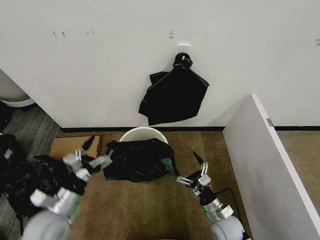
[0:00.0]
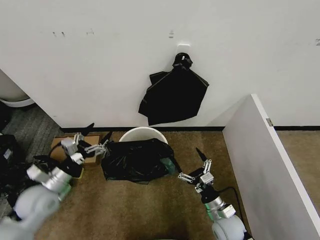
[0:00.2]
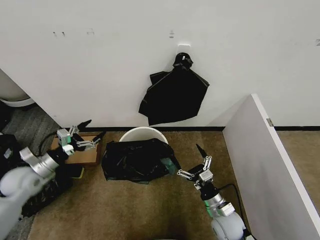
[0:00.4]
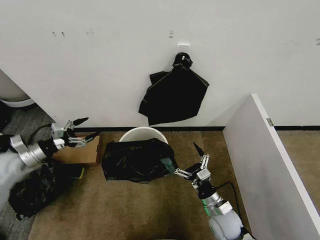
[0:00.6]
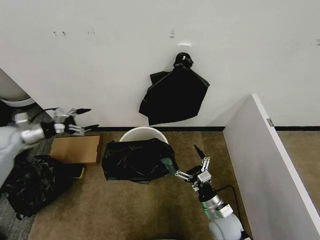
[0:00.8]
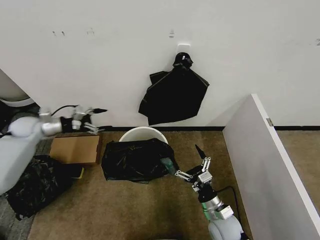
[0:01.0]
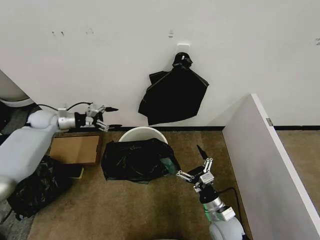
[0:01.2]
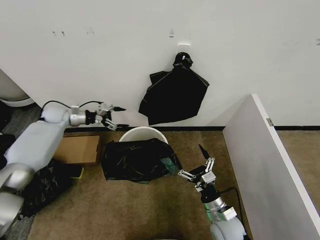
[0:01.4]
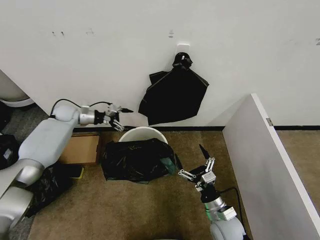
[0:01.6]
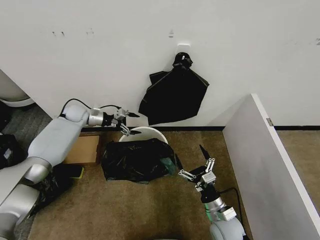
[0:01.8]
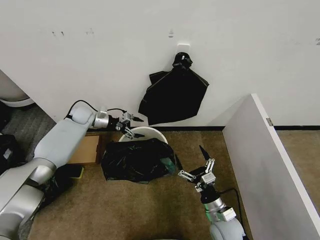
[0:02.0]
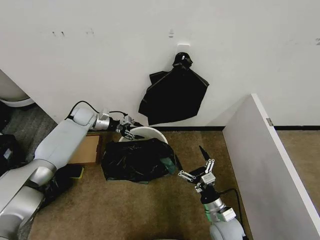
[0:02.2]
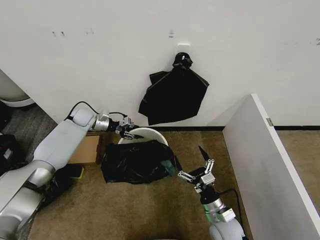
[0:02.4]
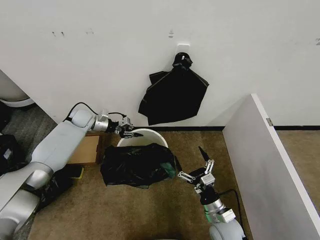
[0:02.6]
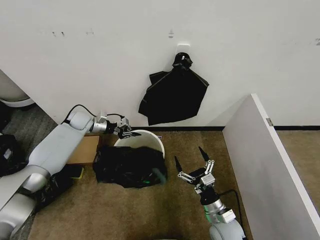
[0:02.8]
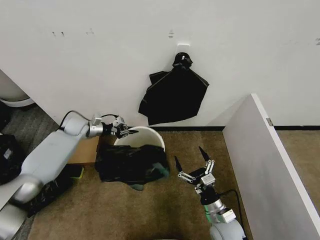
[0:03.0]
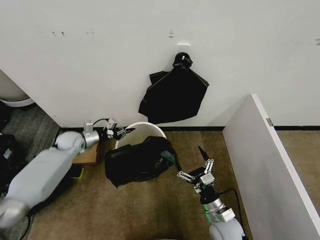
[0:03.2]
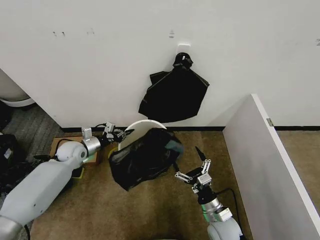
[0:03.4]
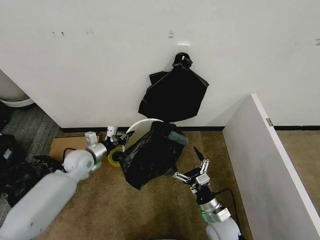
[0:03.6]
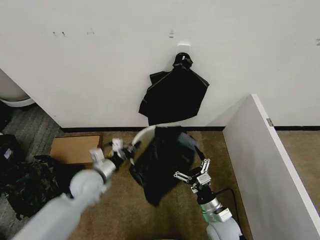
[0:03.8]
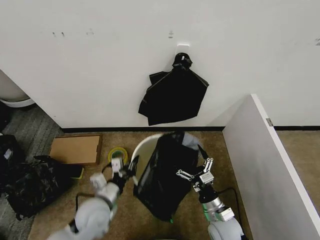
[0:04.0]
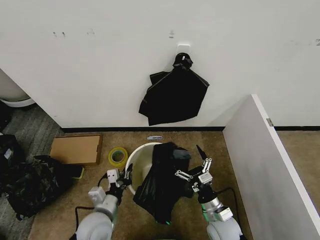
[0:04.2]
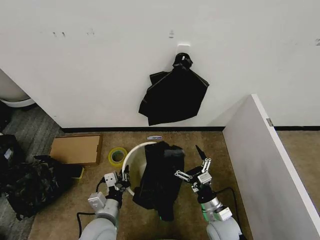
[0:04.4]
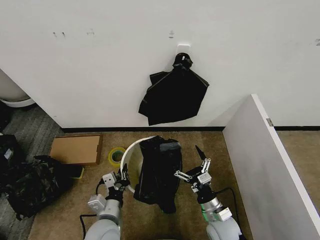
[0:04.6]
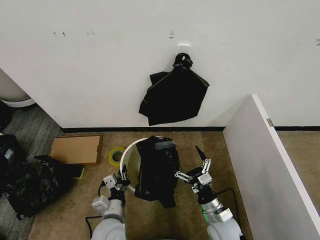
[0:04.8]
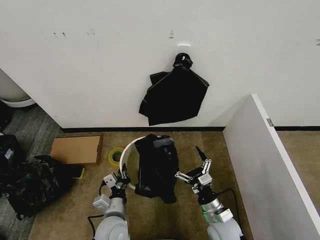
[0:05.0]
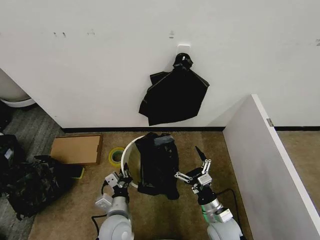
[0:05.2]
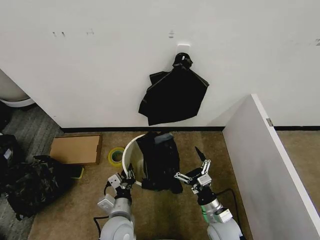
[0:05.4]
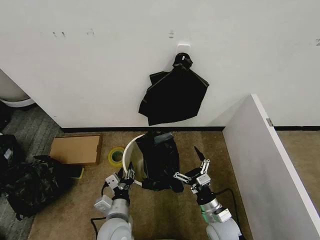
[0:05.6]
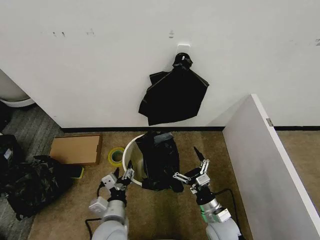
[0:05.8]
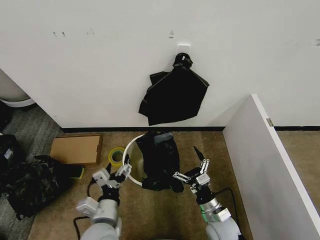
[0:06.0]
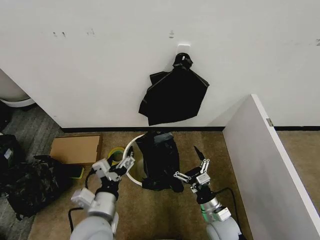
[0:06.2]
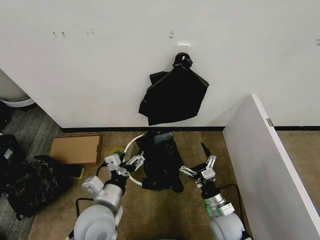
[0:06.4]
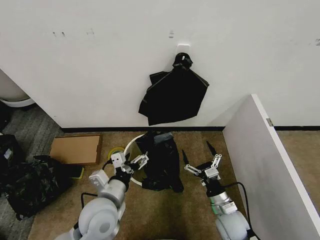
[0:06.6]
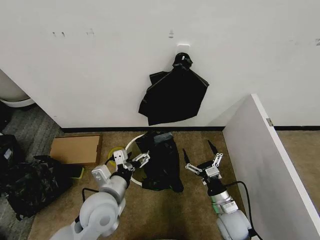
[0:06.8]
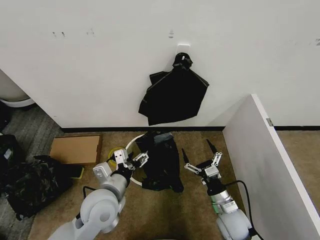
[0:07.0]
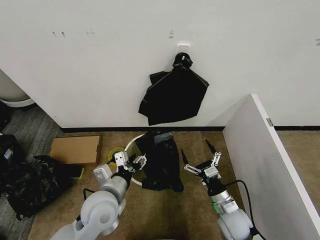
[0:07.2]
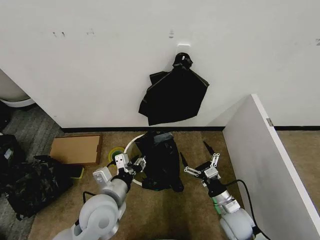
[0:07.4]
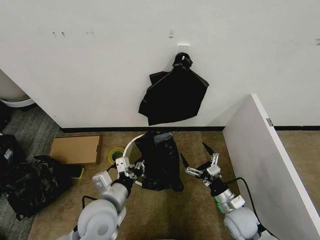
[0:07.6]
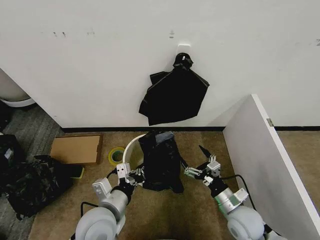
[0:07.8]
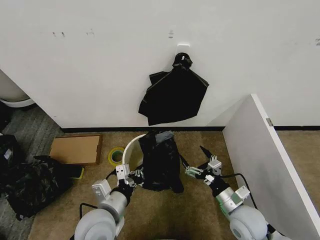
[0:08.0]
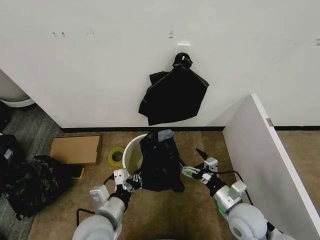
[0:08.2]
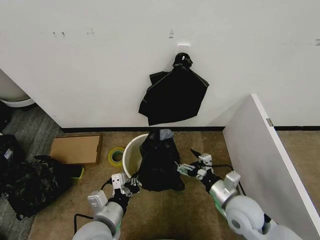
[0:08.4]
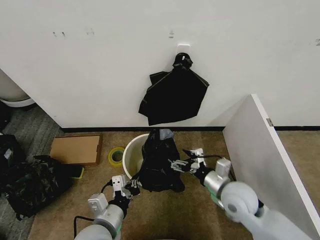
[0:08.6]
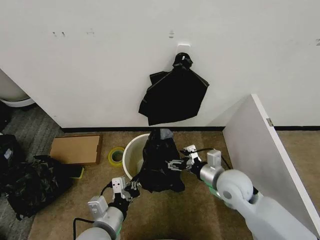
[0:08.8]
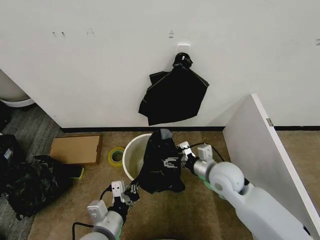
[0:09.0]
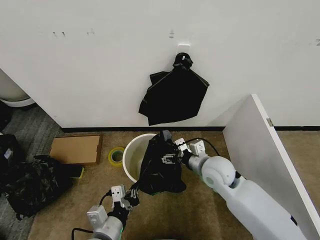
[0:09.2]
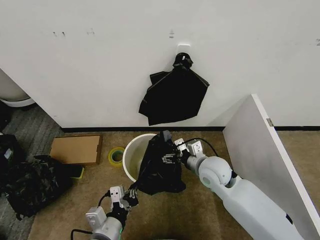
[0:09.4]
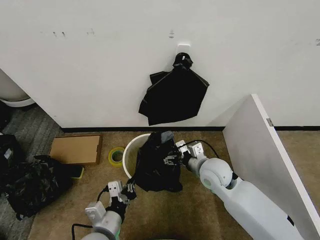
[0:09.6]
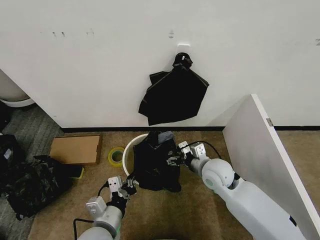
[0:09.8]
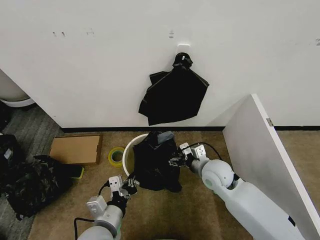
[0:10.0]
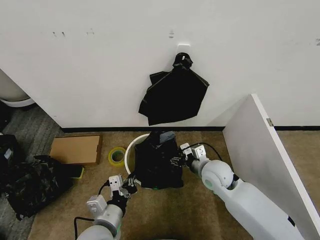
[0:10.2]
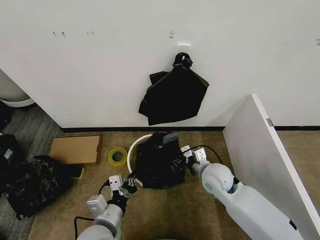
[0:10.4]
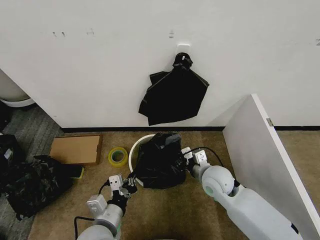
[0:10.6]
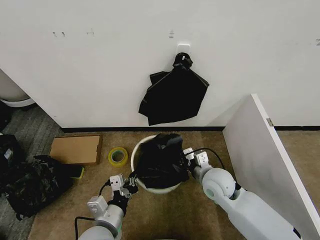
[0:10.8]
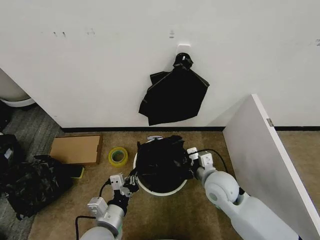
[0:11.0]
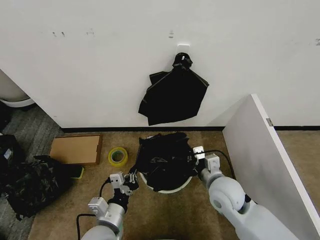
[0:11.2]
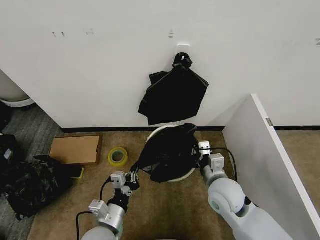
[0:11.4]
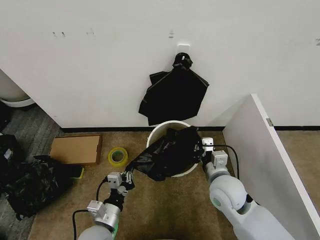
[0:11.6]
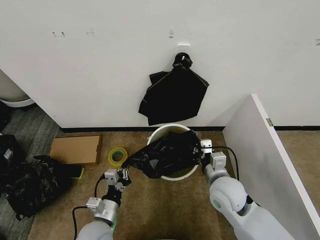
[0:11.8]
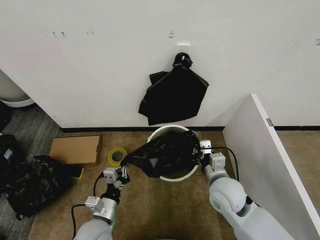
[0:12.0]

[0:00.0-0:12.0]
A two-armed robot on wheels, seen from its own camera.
Task of the whole recording: Place the garbage bag over the trash bin.
0:00.0 to 0:01.6: The left gripper heads forward, covering about 40 cm.
0:01.6 to 0:03.0: The left gripper is displaced downward by about 5 cm, and closes up.
0:03.0 to 0:04.4: The left gripper heads backward and to the right, covering roughly 40 cm.
0:04.4 to 0:06.0: The left gripper moves some 5 cm, and opens up.
0:06.0 to 0:07.6: The left gripper ends up approximately 5 cm from where it was, and closes. The right gripper is displaced to the right by about 5 cm.
0:07.6 to 0:09.0: The right gripper goes roughly 20 cm upward, forward and to the left. The left gripper is displaced backward by some 5 cm.
0:09.0 to 0:10.4: The right gripper closes.
0:10.4 to 0:12.0: The right gripper shifts some 5 cm backward, and closes up. The left gripper shifts some 5 cm downward.

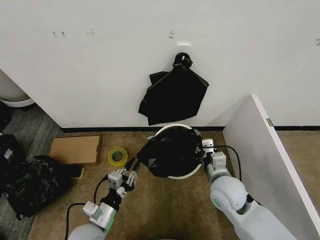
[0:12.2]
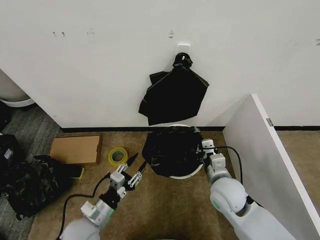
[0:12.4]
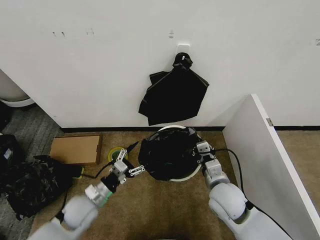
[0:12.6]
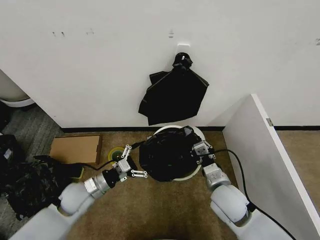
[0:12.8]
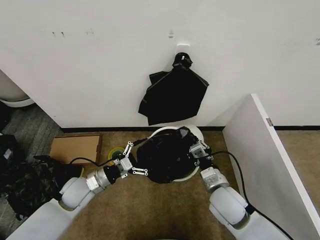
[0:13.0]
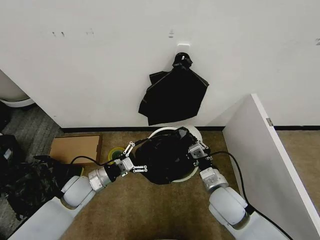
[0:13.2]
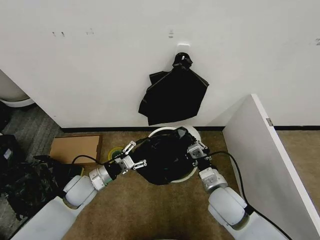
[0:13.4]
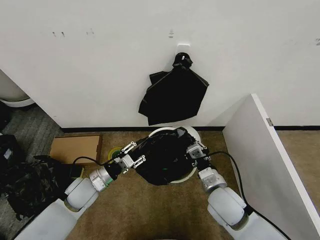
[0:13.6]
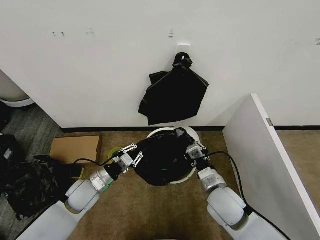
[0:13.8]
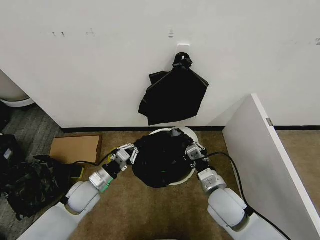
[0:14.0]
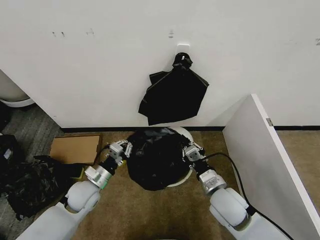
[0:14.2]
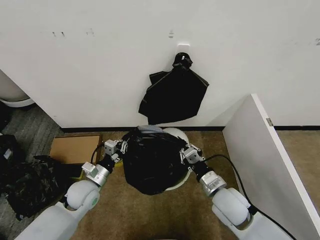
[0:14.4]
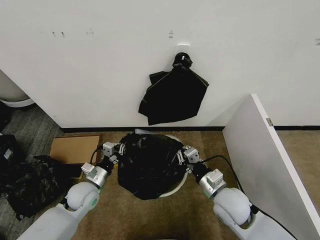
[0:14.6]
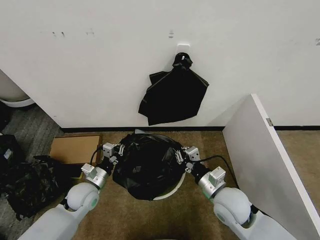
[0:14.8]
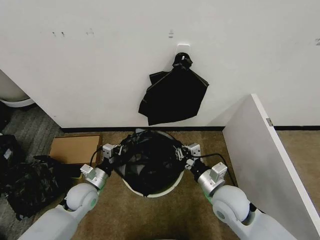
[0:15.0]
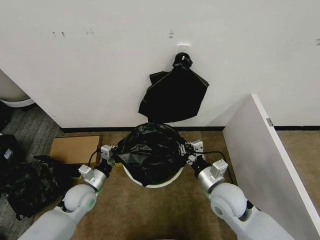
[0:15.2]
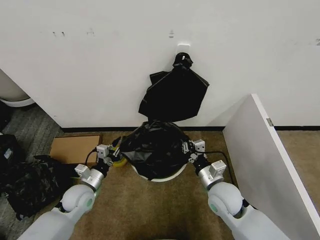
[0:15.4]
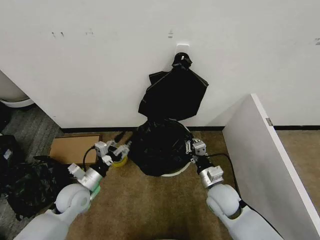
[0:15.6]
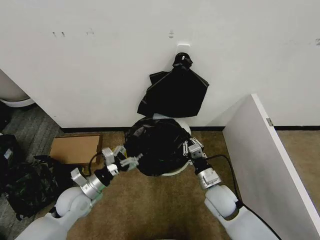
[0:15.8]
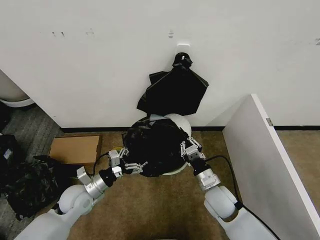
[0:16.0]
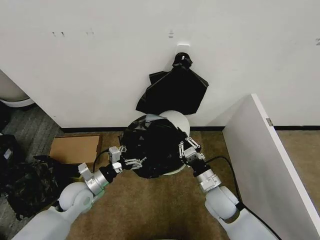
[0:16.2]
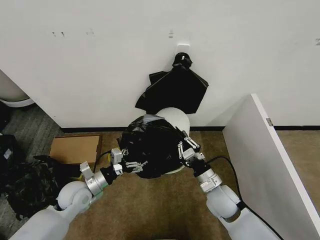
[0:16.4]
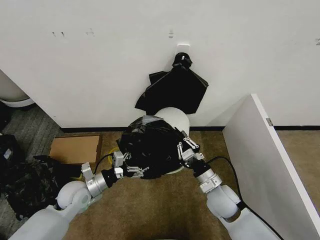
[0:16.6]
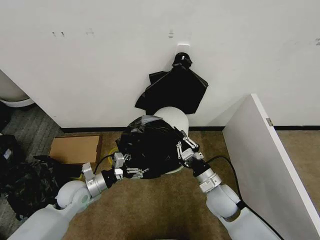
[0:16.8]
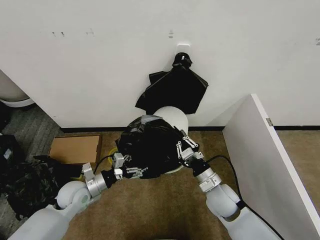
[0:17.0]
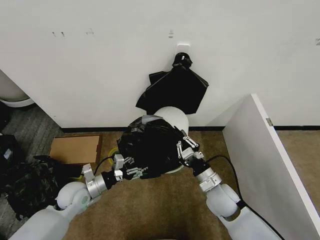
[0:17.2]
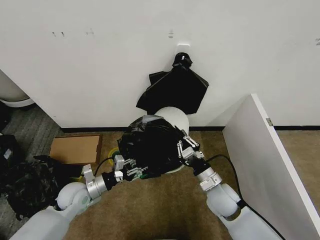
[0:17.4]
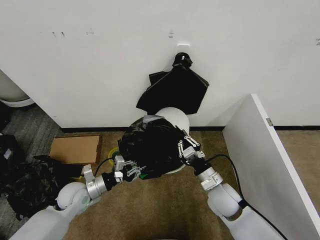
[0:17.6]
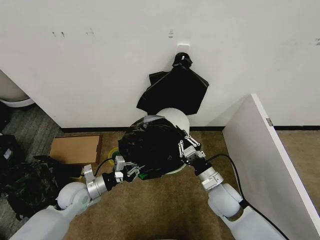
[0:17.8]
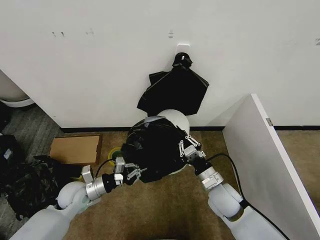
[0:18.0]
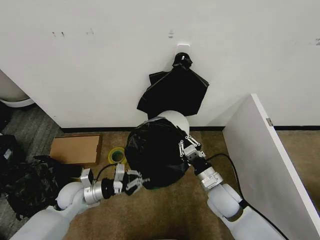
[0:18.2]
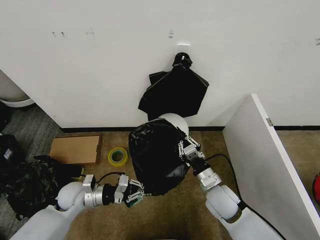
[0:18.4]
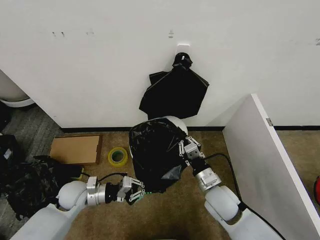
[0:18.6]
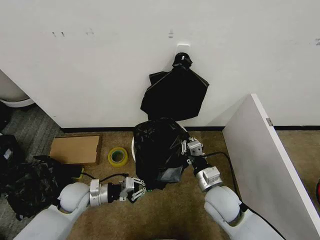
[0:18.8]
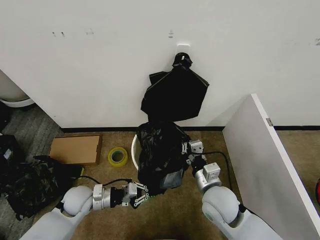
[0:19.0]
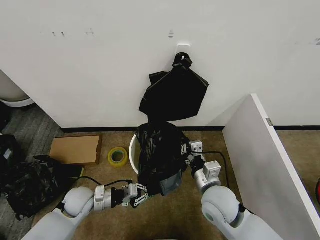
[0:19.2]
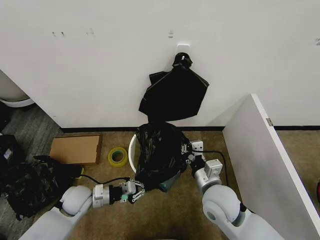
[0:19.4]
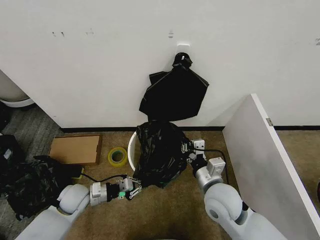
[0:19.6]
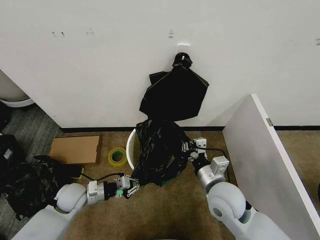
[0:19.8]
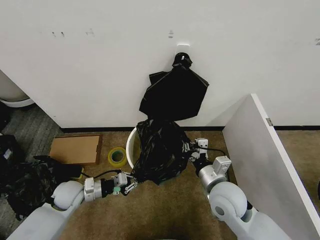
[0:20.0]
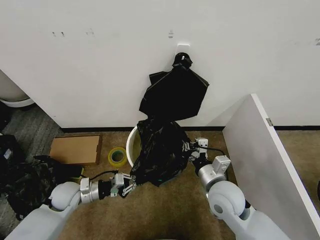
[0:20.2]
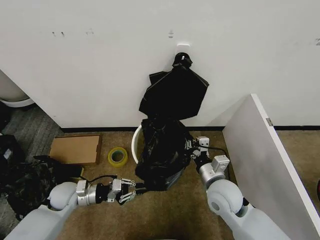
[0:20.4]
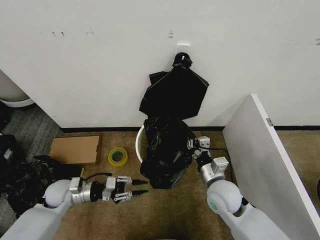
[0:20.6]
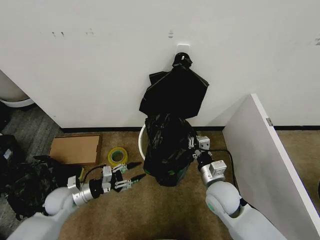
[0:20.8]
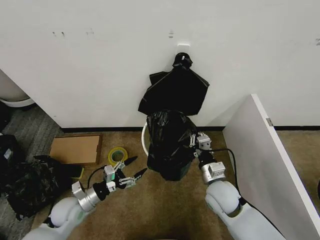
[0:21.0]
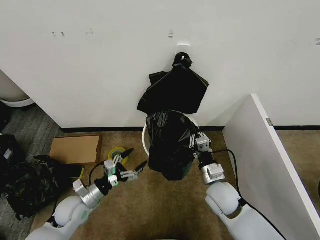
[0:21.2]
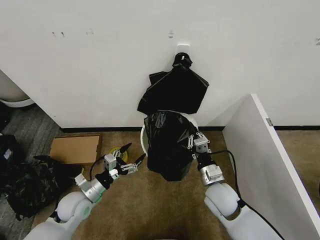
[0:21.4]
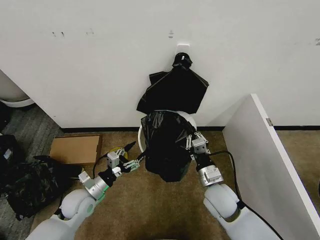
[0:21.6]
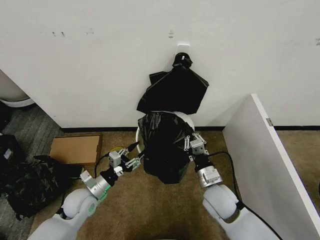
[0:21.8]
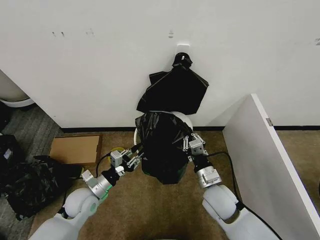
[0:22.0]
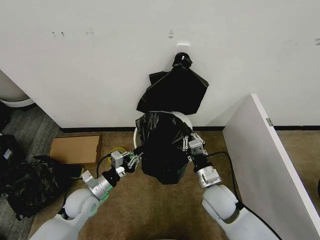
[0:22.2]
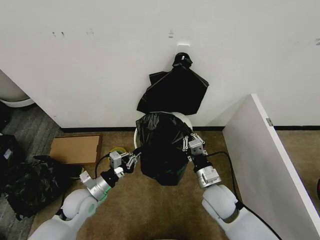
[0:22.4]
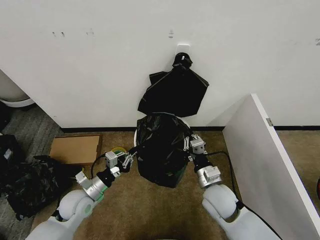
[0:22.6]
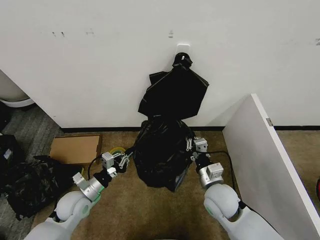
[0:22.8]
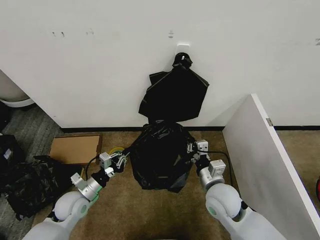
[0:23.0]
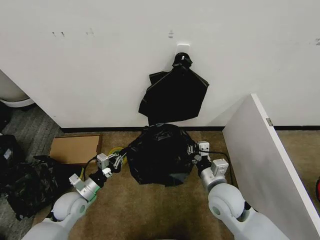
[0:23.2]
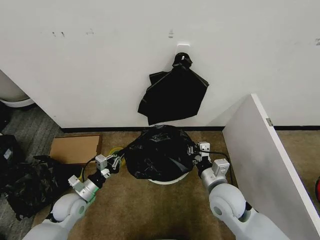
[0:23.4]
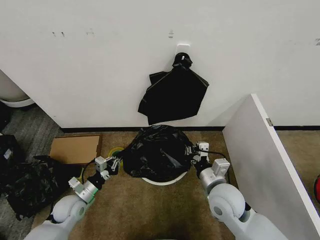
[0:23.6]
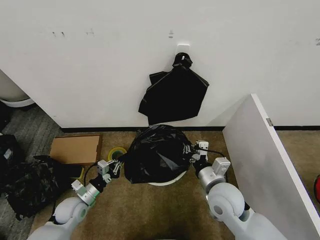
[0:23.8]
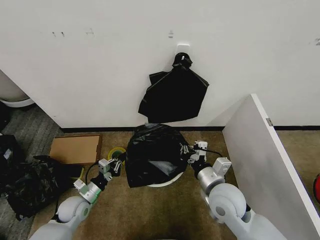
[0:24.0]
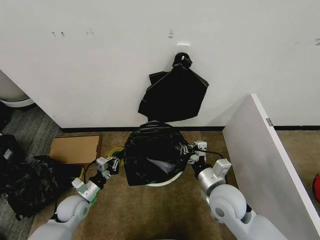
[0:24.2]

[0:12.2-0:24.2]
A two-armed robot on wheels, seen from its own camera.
Task of the whole recording: Place the garbage bag over the trash bin.
0:12.2 to 0:13.8: The left gripper is displaced forward by some 15 cm, and opens, then closes once more.
0:15.2 to 0:16.6: The right gripper moves downward, about 5 cm. Meanwhile the left gripper opens.
0:16.6 to 0:18.2: The left gripper closes.
0:18.2 to 0:19.8: The right gripper goes some 5 cm upward.
0:19.8 to 0:21.2: The left gripper opens up, while the right gripper travels downward by about 5 cm.
0:21.2 to 0:22.6: The left gripper closes.
0:22.6 to 0:24.2: The left gripper heads downward, covering about 5 cm.
